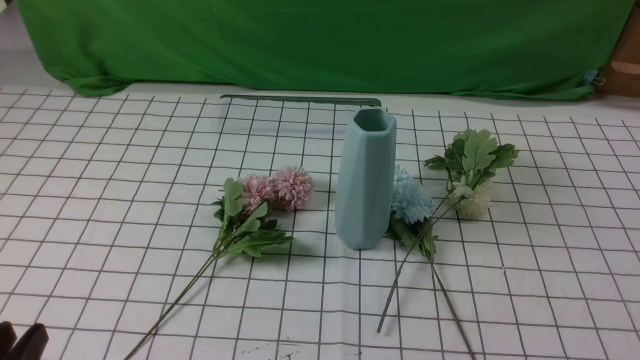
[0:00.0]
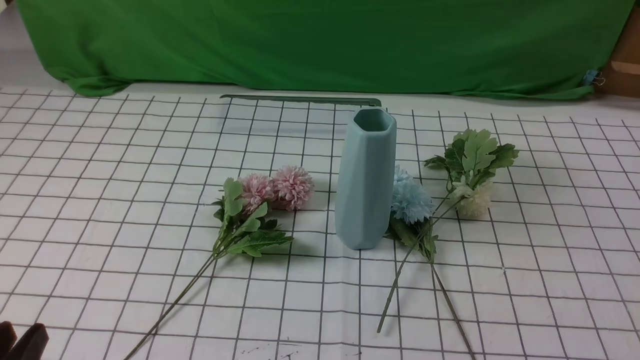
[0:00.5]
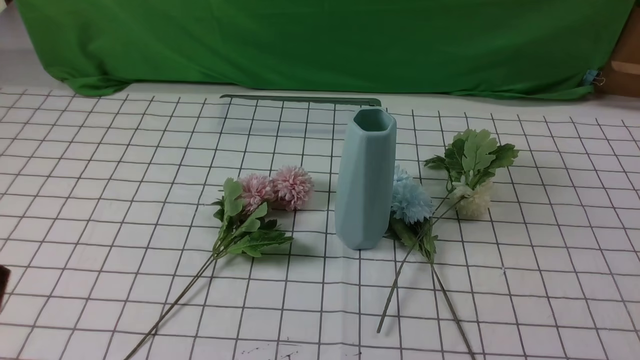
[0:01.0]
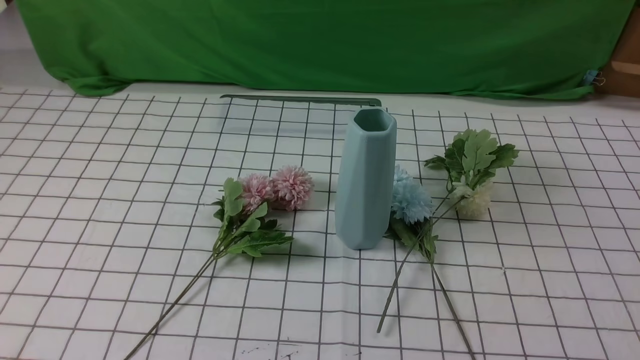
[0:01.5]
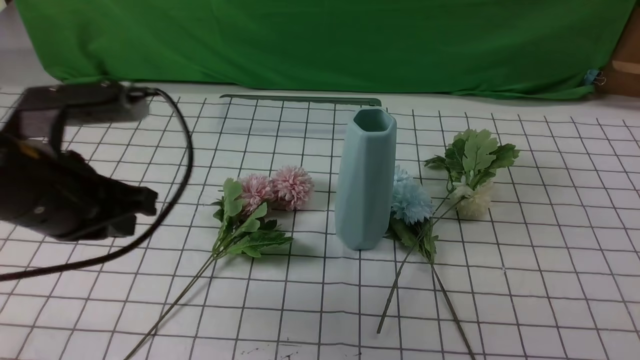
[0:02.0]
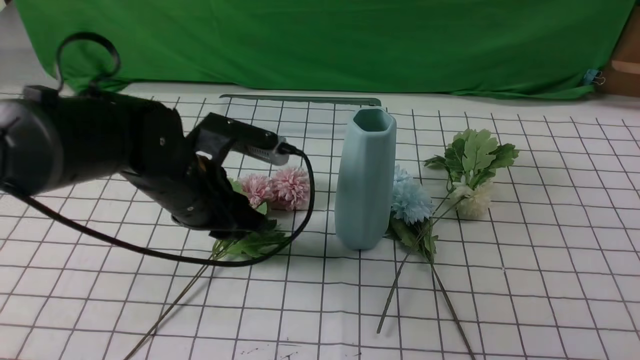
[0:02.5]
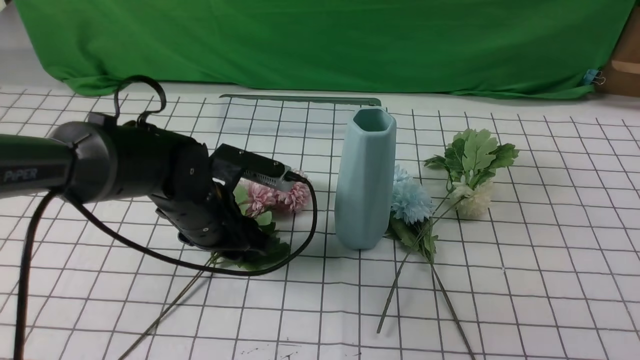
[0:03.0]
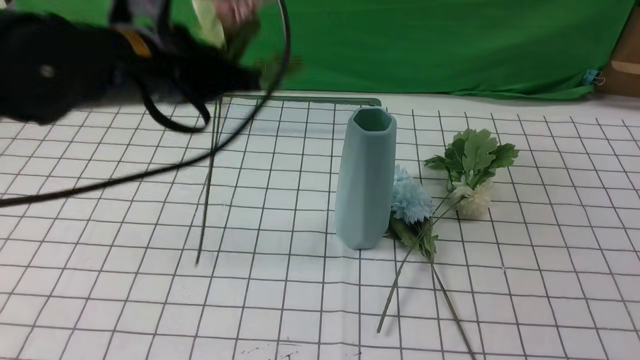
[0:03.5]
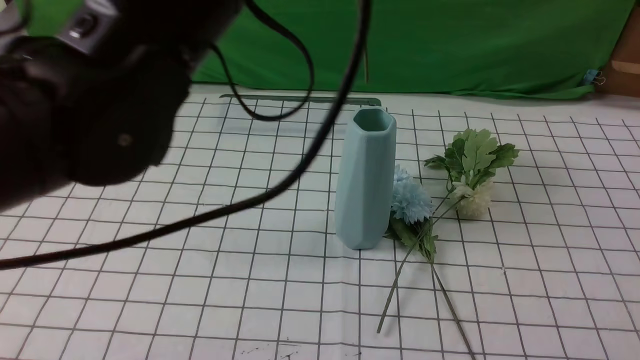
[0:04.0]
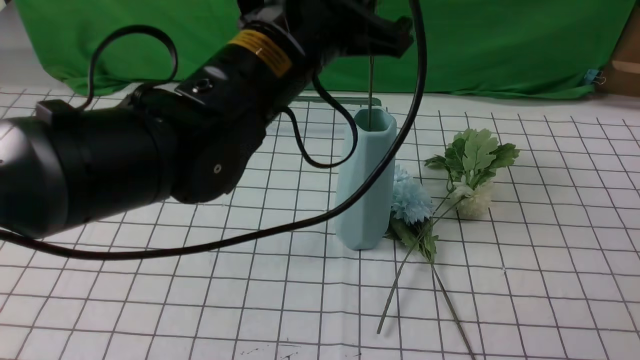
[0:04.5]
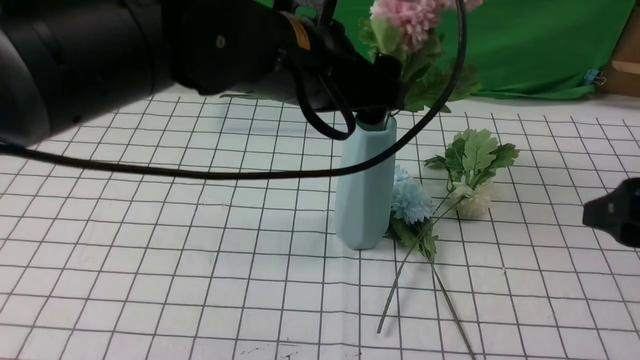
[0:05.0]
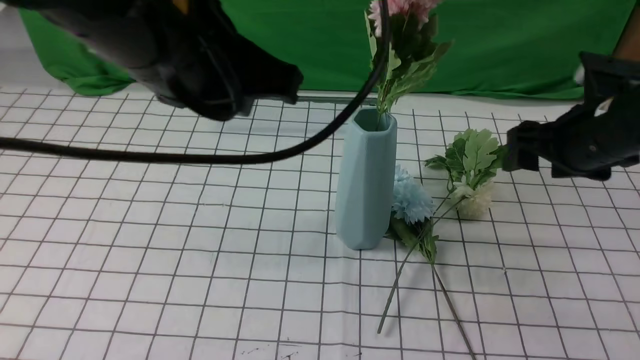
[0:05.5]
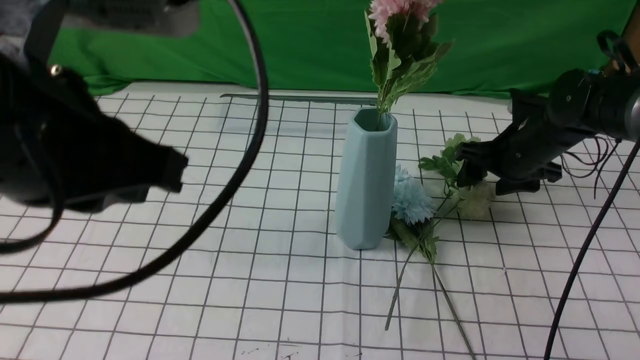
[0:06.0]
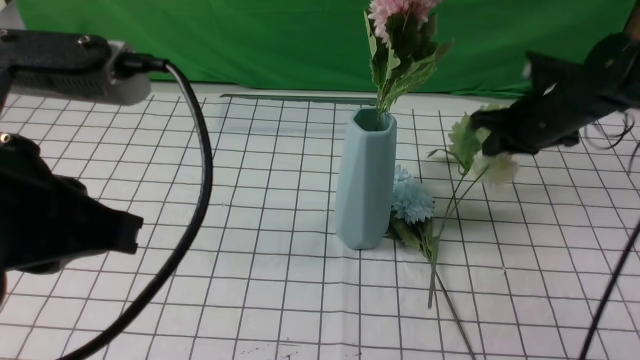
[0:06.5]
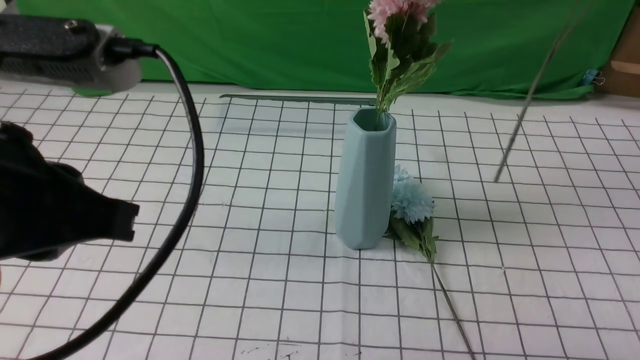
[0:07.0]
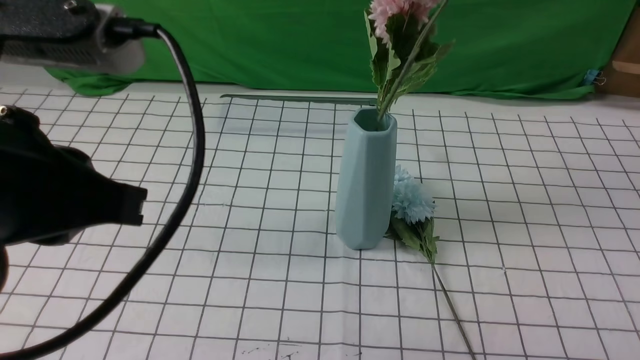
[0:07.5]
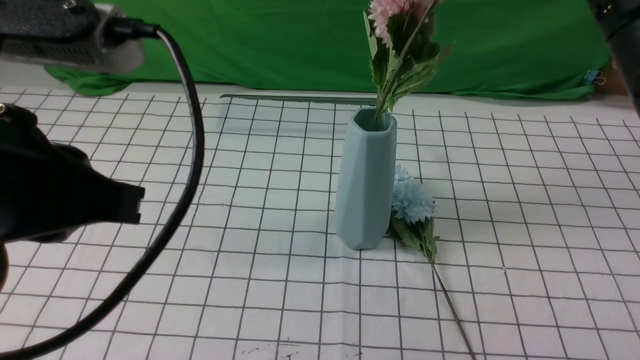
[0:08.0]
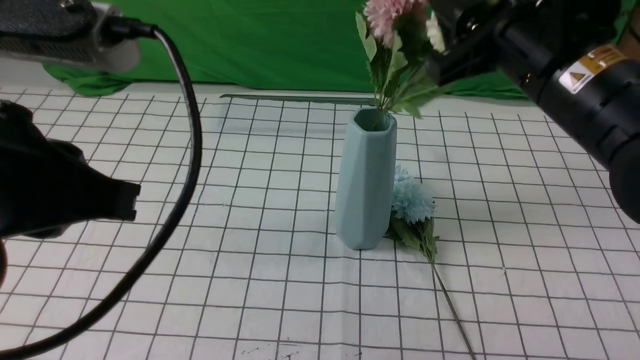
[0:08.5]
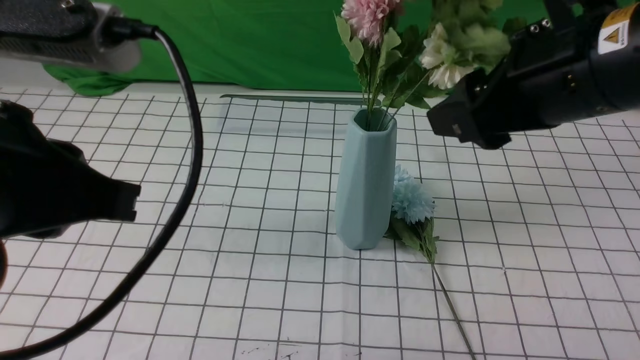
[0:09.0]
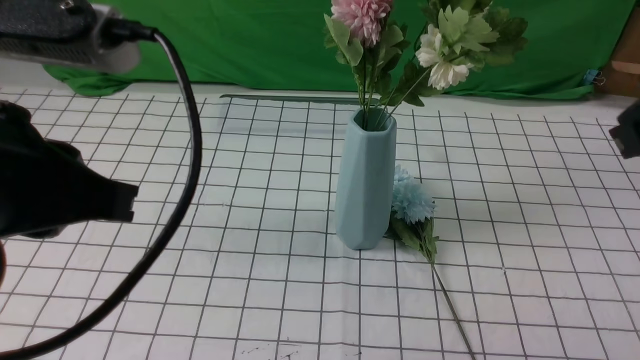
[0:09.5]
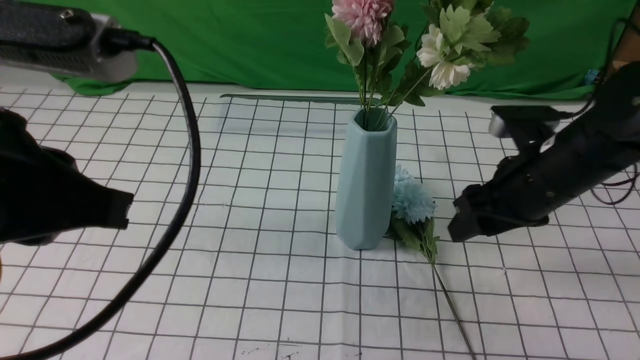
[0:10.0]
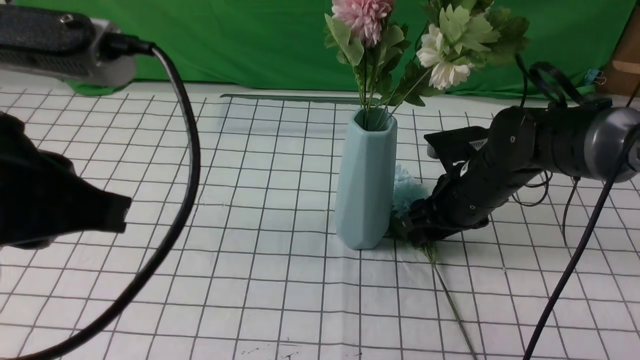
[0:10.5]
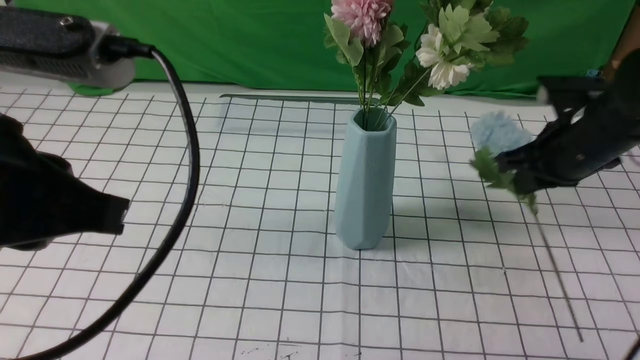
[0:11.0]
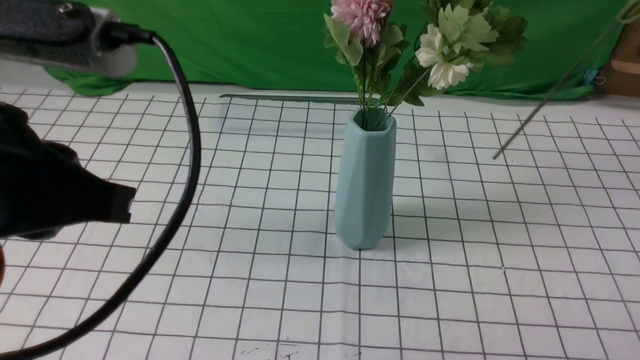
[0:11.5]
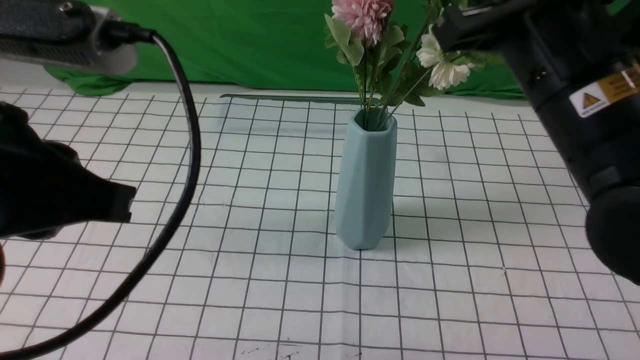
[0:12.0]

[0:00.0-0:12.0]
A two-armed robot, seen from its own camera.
Task of the whole recording: insert the flowers into the vase on the table with the white tablecloth.
Step, 0:00.0 to 0:03.0: use the left arm to grab a bunch of fresh flowers.
Step, 0:03.5 to 0:05.0: use the left arm to insert the flowers into the vase.
Step, 0:05.5 to 0:06.0: use the right arm to grab a bunch of fresh flowers.
Step, 0:07.0 to 0:08.5: use the right arm to insert the flowers into the vase.
Step, 0:09.0 to 0:10.5: use the right arm to grab a bunch of fresh flowers.
0:00.0 to 0:02.0: The right gripper heads upward, covering about 10 cm. The left gripper moves forward and upward, approximately 20 cm, and closes its fingers.
0:02.0 to 0:04.0: The right gripper goes roughly 5 cm forward, and opens up, while the left gripper is displaced to the right and upward by approximately 20 cm, and opens, then closes once more.
0:04.0 to 0:06.0: The right gripper shifts some 35 cm forward and downward. Meanwhile the left gripper travels backward and to the left by approximately 15 cm, and opens and closes again.
0:06.0 to 0:08.0: The right gripper goes roughly 30 cm upward and backward, and closes its fingers.
0:08.0 to 0:10.0: The right gripper swings up and down, about 15 cm each way, with 2 reversals, and opens up.
0:10.0 to 0:12.0: The right gripper goes some 15 cm upward and backward, and closes its fingers.

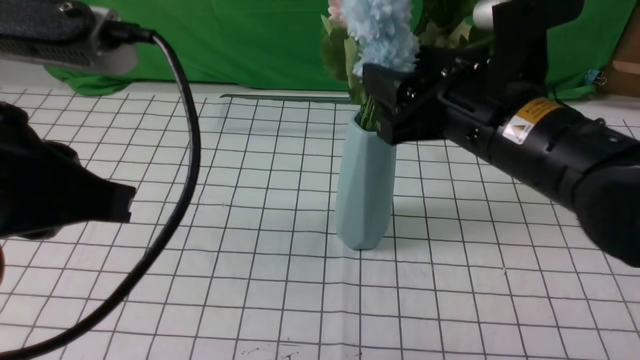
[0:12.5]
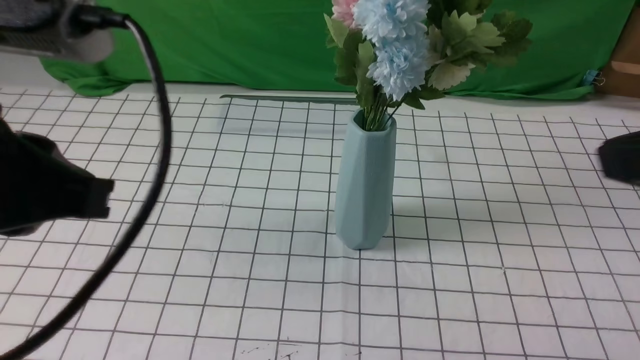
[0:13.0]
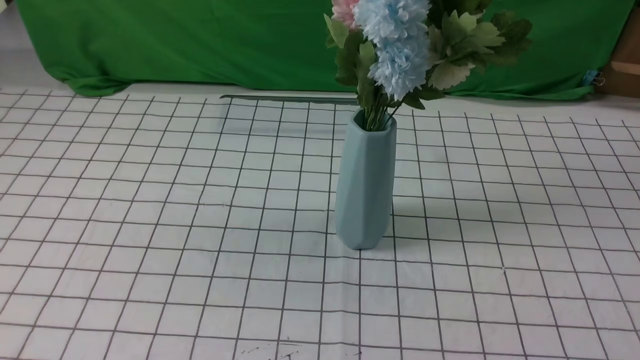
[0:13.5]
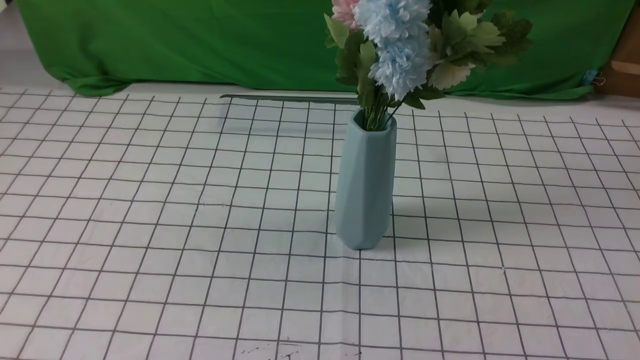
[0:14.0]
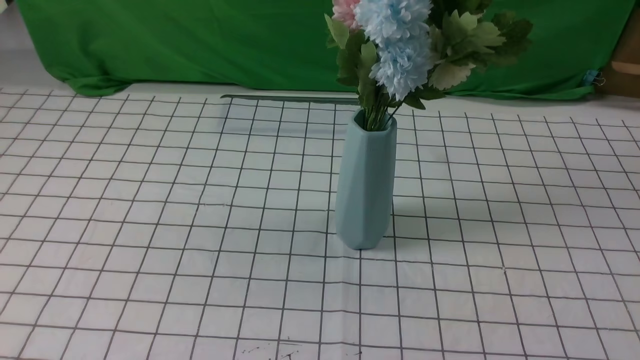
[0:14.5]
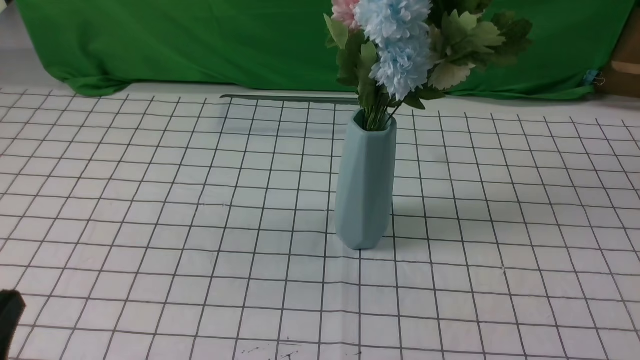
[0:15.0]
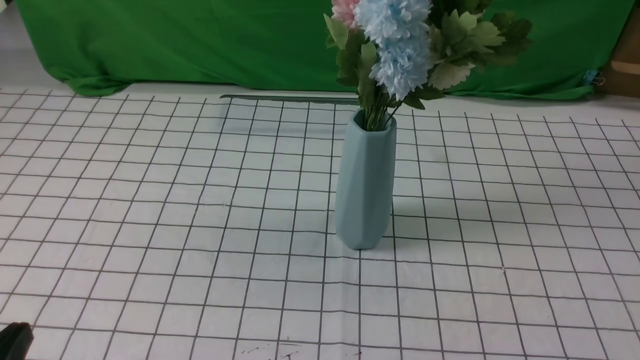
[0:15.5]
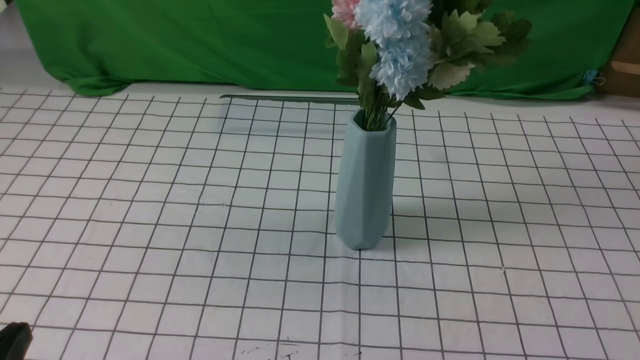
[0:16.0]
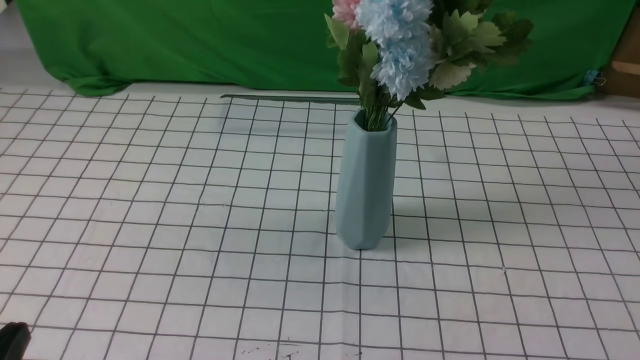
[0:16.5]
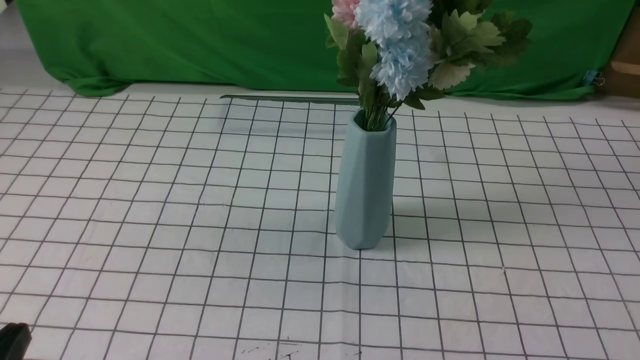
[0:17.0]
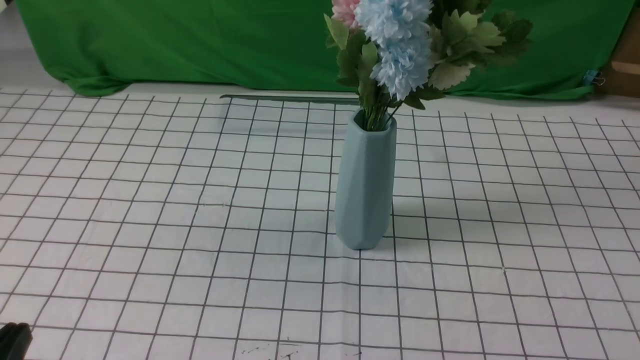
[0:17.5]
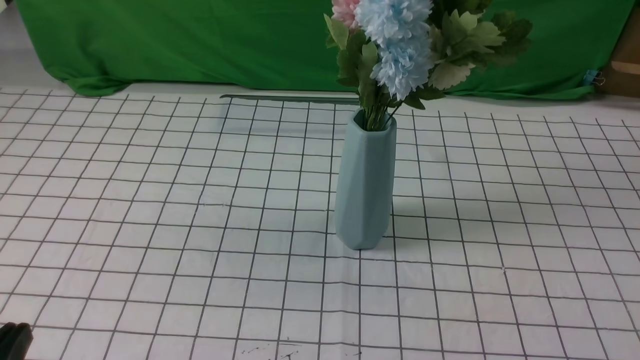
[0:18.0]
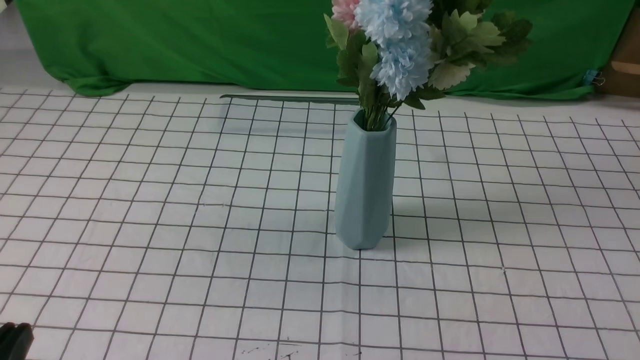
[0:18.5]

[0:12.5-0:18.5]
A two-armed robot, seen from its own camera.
Task of the whole recording: insert the flowers into the vase on the table with the white tablecloth.
0:12.5 to 0:14.5: The right gripper is displaced backward and to the right by approximately 30 cm, and closes its fingers, while the left gripper travels backward, to the left and downward by approximately 15 cm.

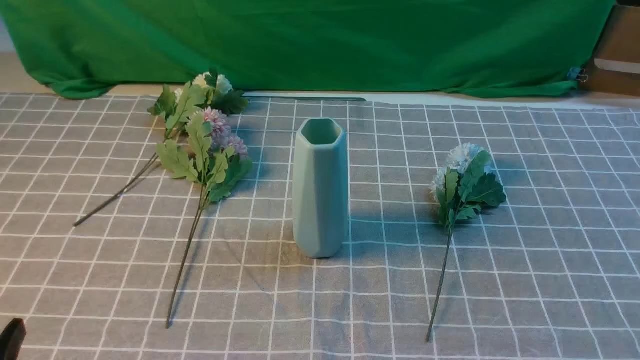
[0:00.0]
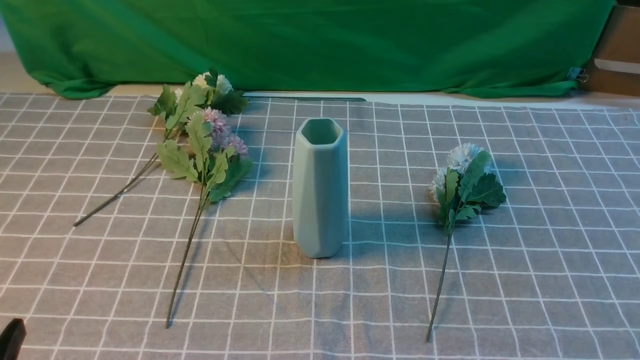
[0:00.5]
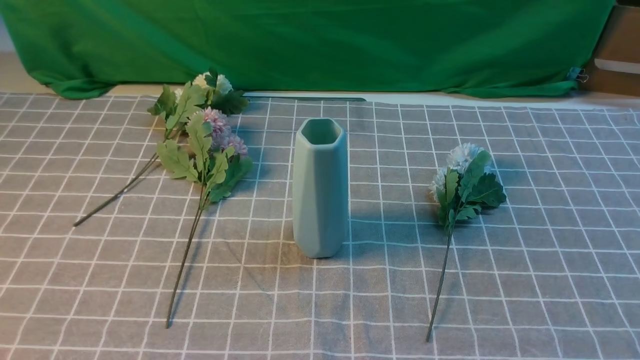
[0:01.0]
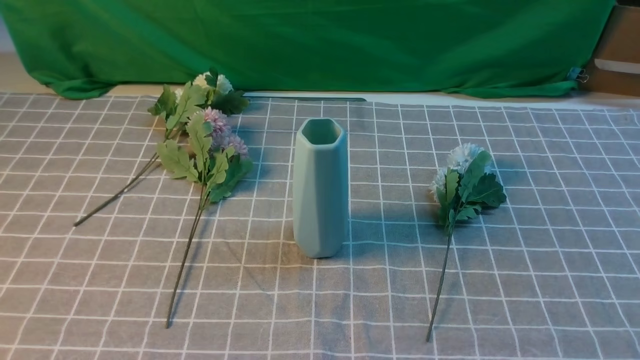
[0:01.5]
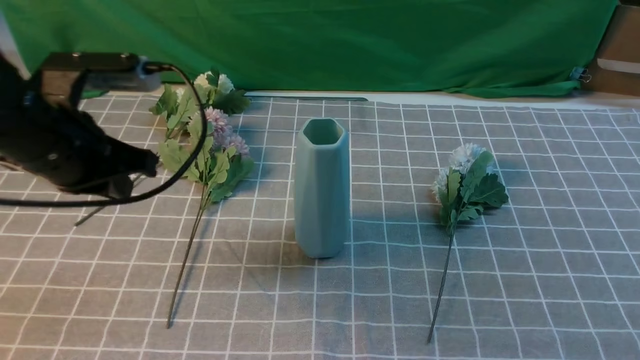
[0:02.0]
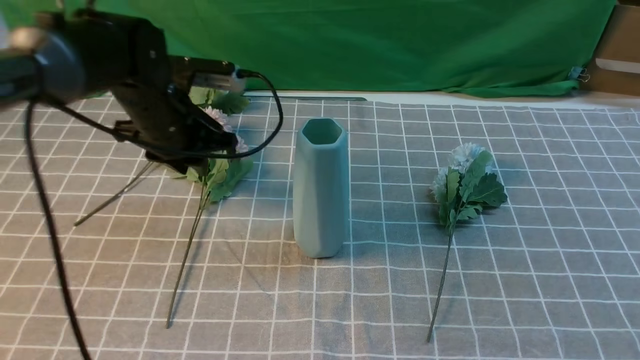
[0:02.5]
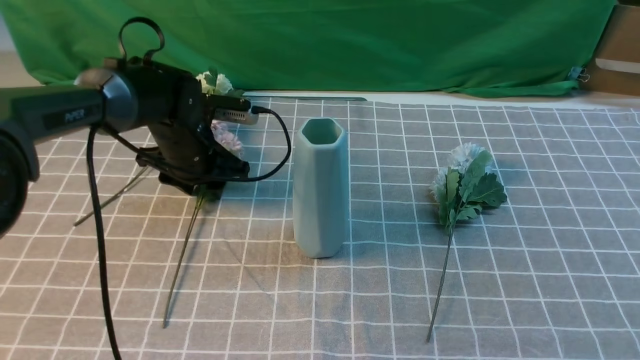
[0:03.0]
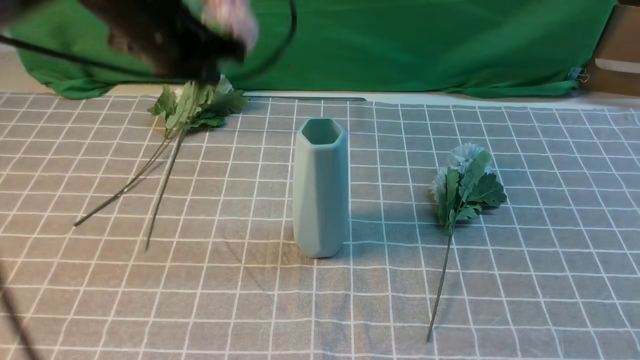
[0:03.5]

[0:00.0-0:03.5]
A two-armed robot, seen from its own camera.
Task of the whole recording: insert the flowers into the vase on the table with the grey tablecloth.
Step, 0:00.0 to 0:03.0: use the left arm to grab a bunch of fresh flowers.
0:00.0 to 0:02.0: The left gripper heads forward and upward, covering approximately 25 cm, and closes up; the right gripper moves upward, roughly 5 cm.
0:02.0 to 0:03.5: The right gripper travels upward and forward by approximately 10 cm; the left gripper travels forward and to the right by about 10 cm, moves approximately 15 cm downward and comes back, and opens and closes again.
